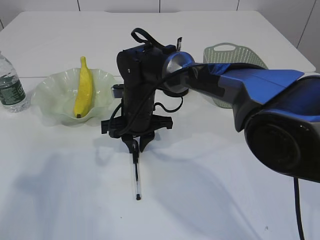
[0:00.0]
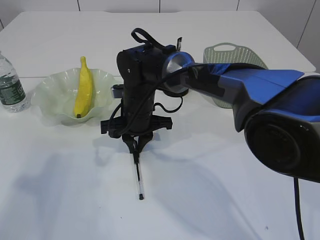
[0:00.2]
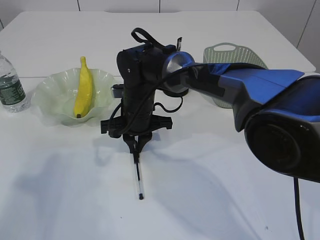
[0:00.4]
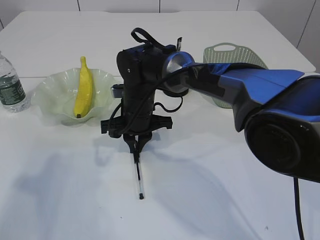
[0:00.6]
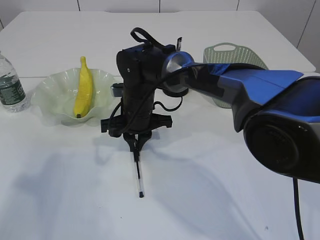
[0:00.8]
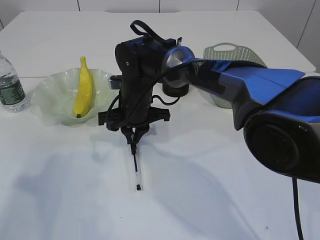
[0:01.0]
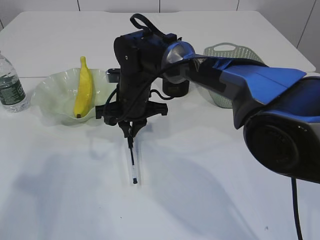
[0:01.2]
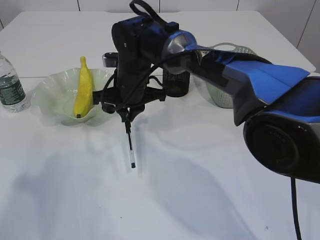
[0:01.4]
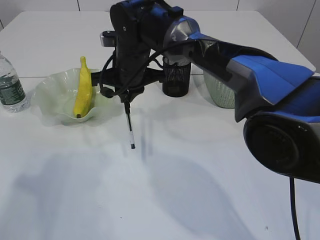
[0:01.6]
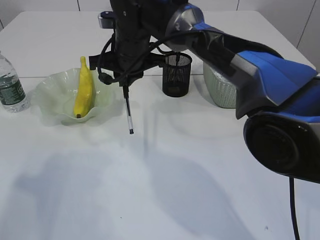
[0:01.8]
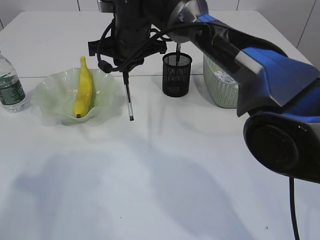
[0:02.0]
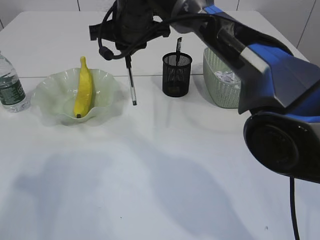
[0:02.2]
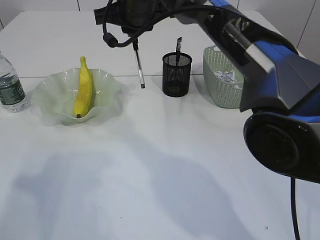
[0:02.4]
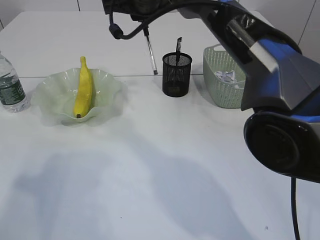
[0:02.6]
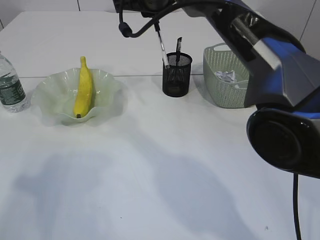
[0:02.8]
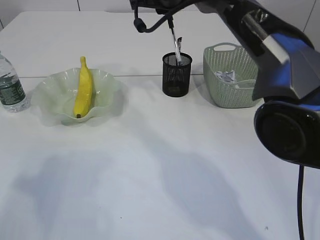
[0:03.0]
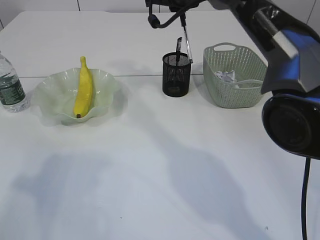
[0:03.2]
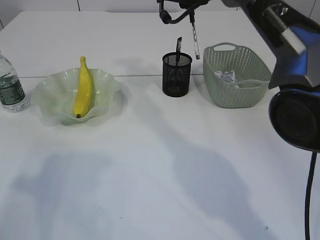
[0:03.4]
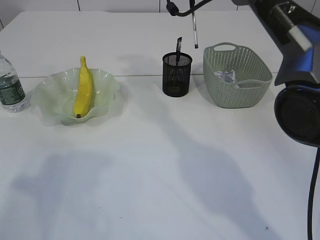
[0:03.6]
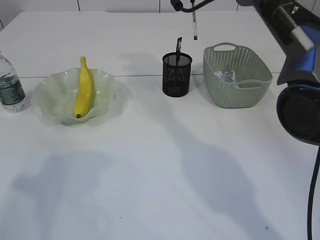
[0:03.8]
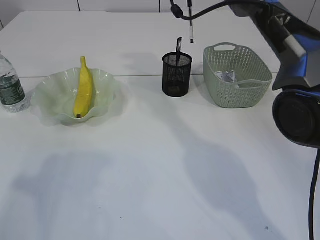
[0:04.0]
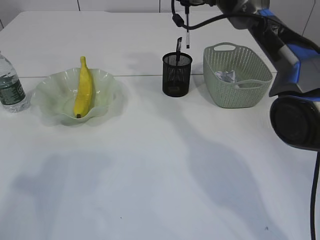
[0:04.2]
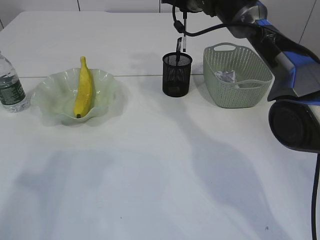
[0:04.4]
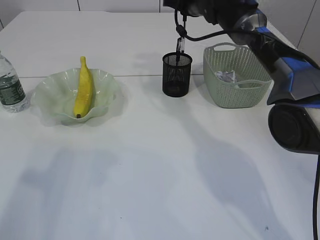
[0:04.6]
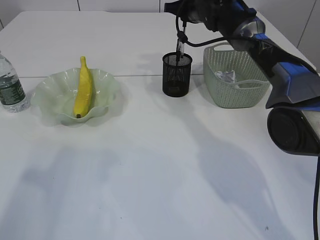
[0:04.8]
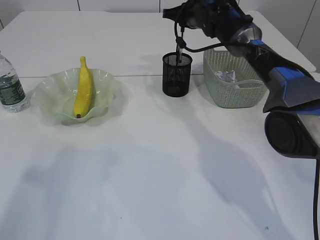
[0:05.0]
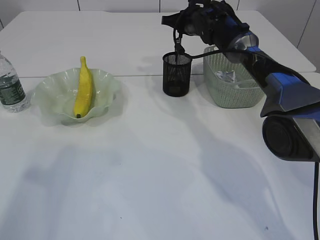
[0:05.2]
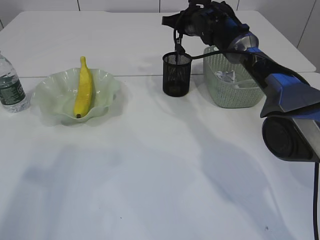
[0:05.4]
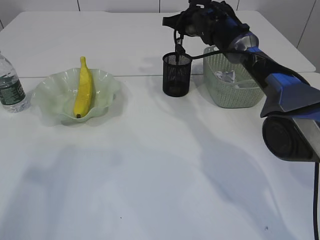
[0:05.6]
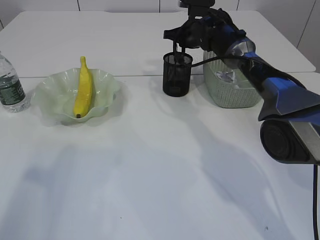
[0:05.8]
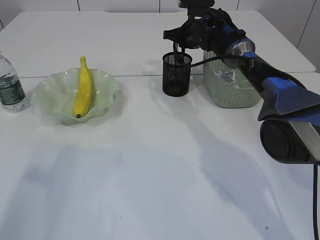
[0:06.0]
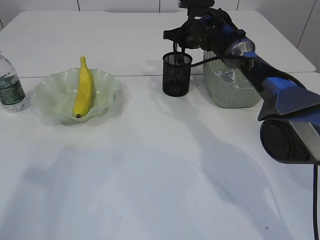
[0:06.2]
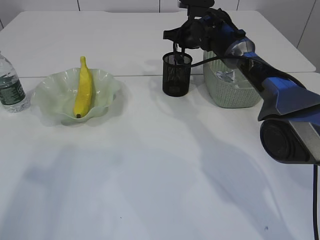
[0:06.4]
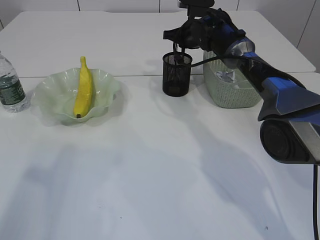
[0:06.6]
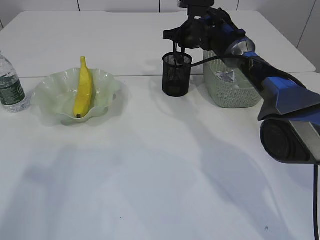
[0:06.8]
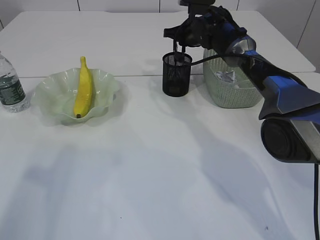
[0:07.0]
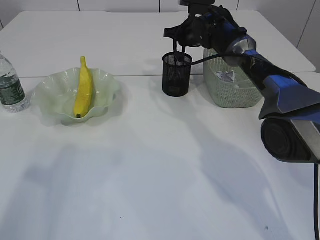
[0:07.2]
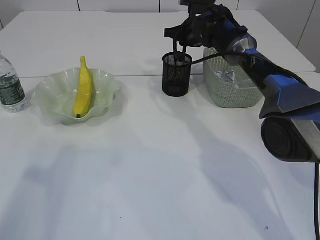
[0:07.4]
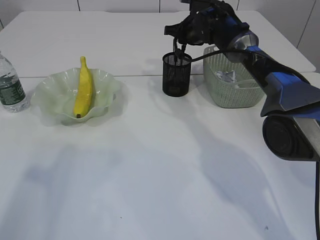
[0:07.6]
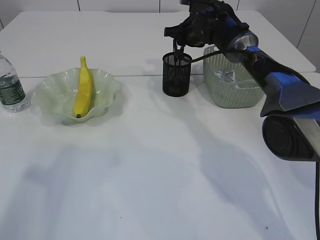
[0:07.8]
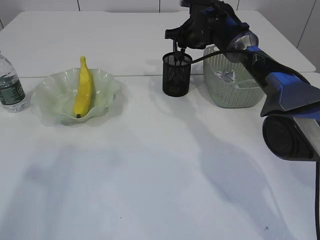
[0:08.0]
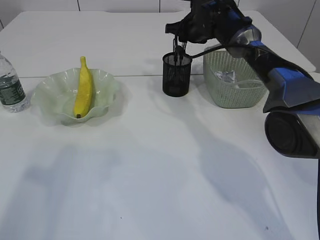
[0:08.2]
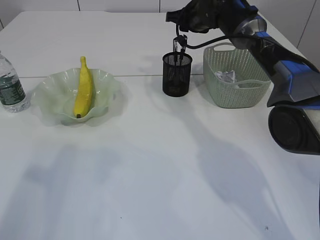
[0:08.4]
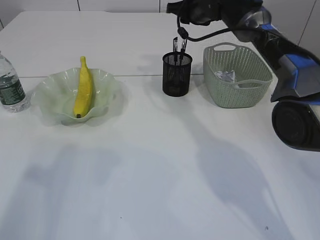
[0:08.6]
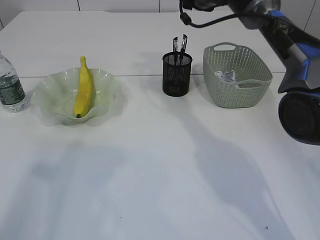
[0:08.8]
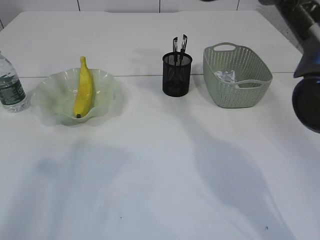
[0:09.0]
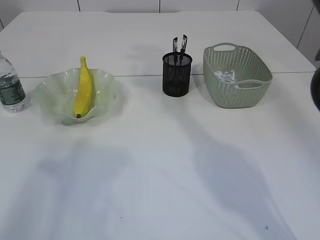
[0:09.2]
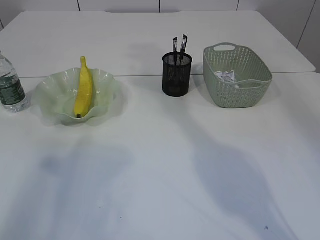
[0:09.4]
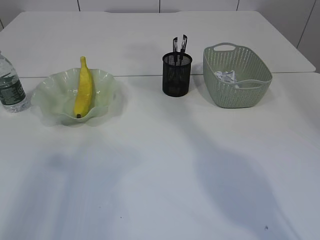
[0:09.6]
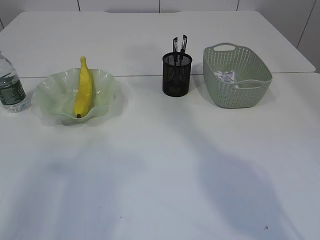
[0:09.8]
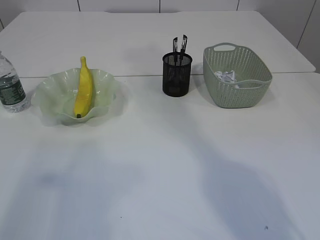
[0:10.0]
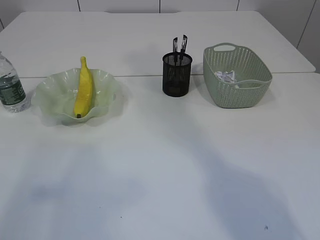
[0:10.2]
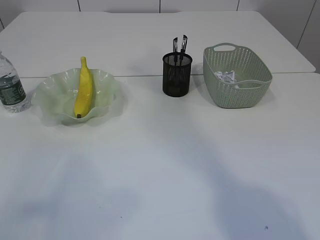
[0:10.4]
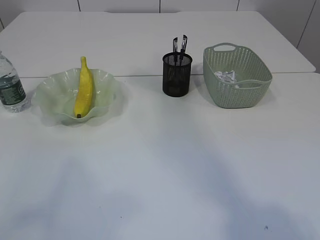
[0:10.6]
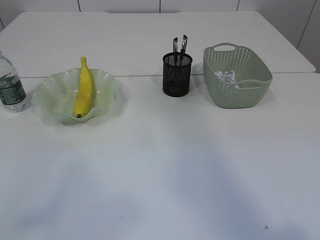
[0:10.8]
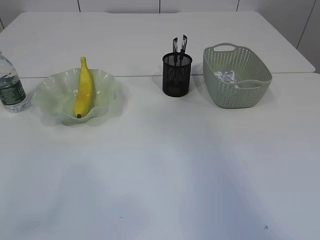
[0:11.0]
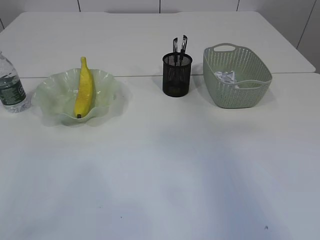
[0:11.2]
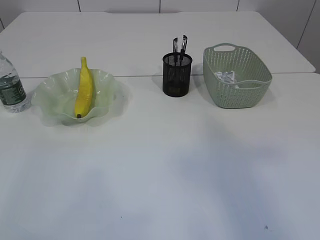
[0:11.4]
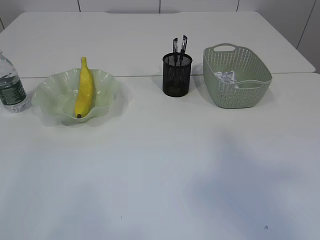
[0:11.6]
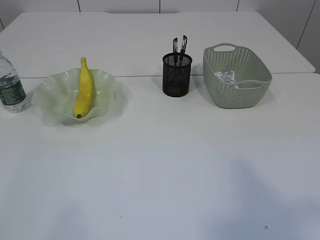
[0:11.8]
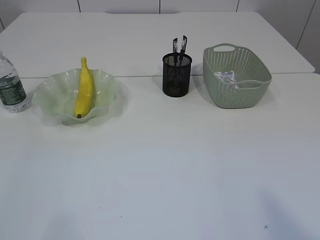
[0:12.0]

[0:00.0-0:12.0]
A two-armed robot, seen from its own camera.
Step, 0:01.4 to 0:08.4: Place the pen into the pen holder.
0:00.0 to 0:01.6: The right gripper travels upward by about 10 cm.
0:01.6 to 0:03.0: The right gripper moves upward and to the right, some 15 cm.
0:03.0 to 0:04.4: The right gripper goes roughly 10 cm forward and to the right.
0:04.4 to 0:06.0: The right gripper goes approximately 10 cm downward.
0:06.0 to 0:07.6: The two grippers keep their place.
0:07.6 to 0:09.0: The right gripper travels upward by some 15 cm.
0:09.0 to 0:10.4: The left gripper is displaced backward and upward by some 15 cm. Meanwhile the right gripper is displaced upward and backward by approximately 40 cm, and closes its fingers.
0:10.4 to 0:12.0: The right gripper is displaced backward by some 30 cm.

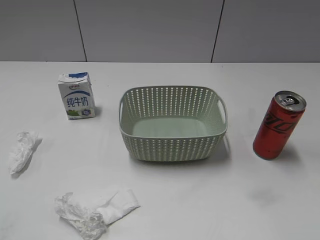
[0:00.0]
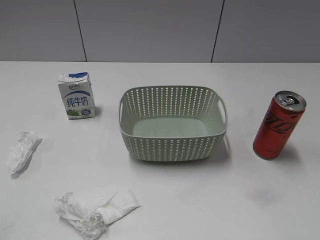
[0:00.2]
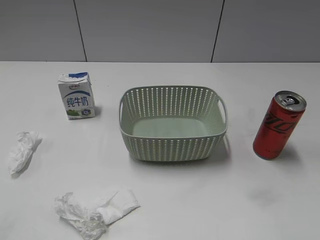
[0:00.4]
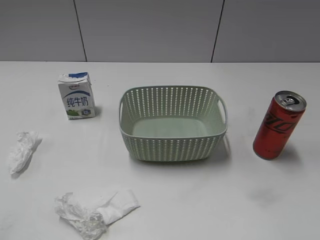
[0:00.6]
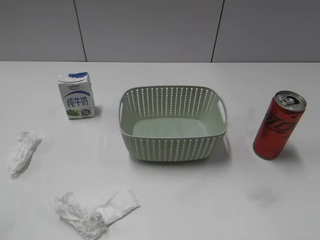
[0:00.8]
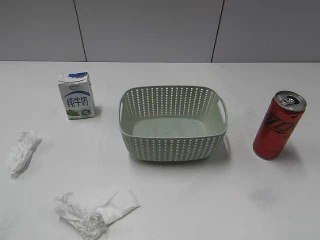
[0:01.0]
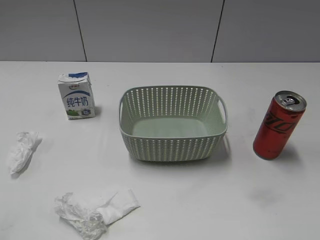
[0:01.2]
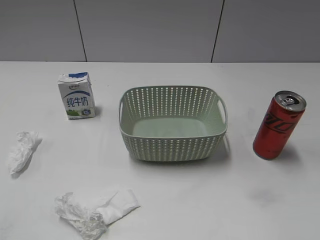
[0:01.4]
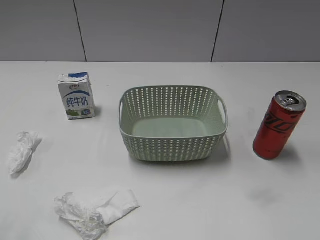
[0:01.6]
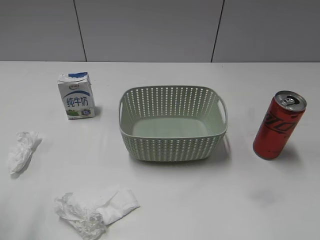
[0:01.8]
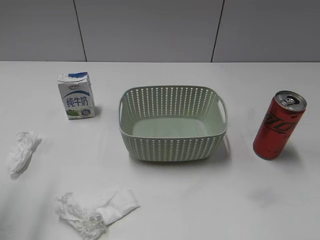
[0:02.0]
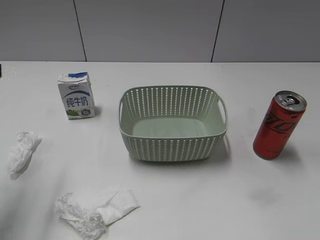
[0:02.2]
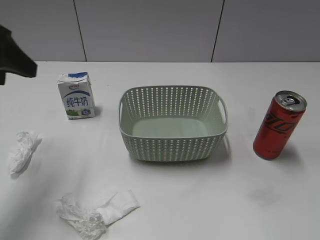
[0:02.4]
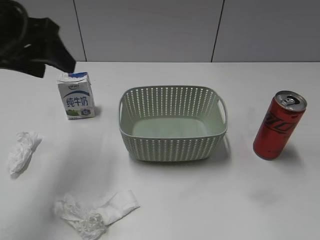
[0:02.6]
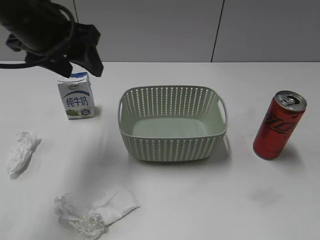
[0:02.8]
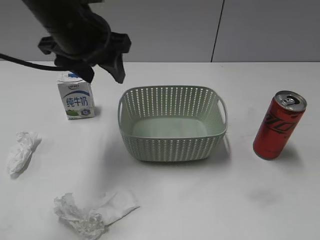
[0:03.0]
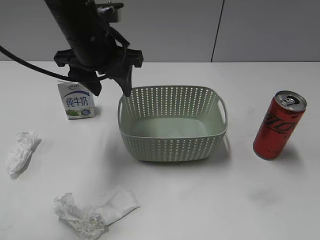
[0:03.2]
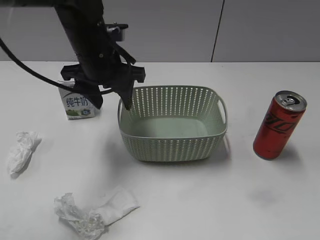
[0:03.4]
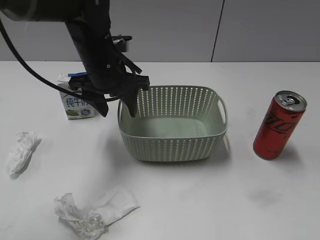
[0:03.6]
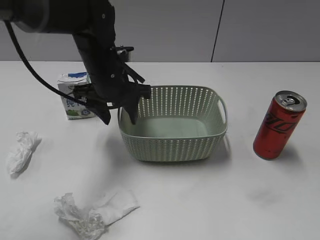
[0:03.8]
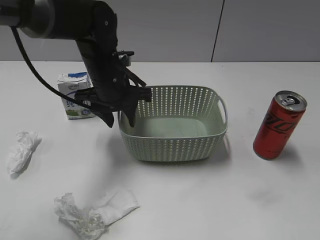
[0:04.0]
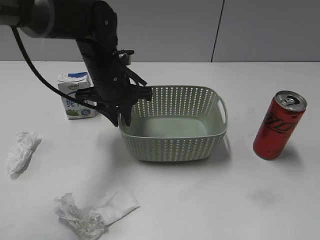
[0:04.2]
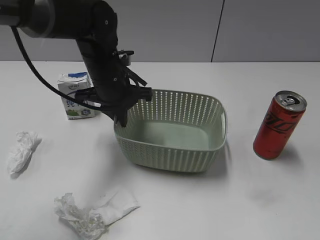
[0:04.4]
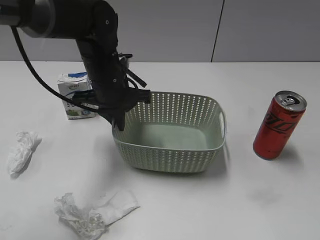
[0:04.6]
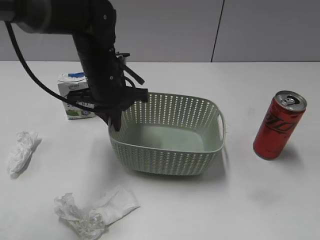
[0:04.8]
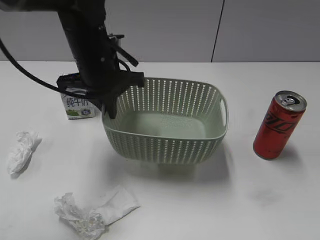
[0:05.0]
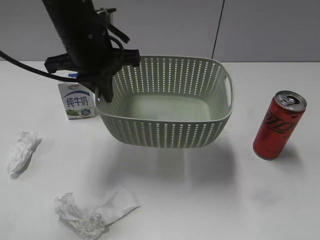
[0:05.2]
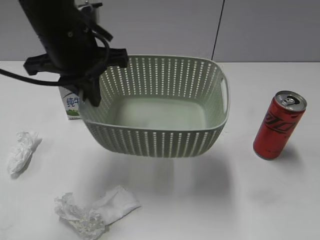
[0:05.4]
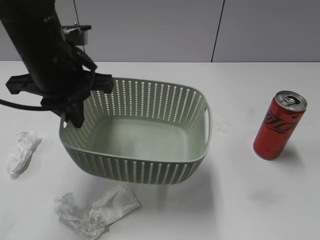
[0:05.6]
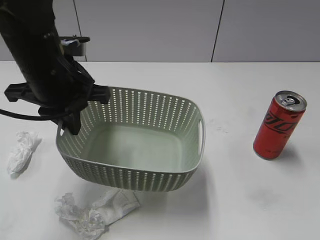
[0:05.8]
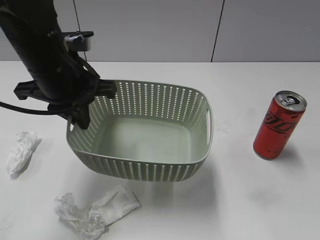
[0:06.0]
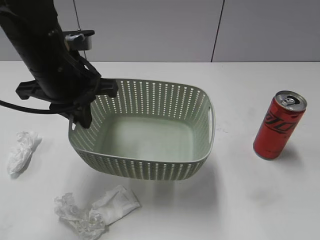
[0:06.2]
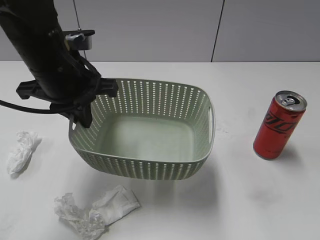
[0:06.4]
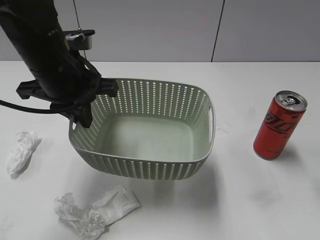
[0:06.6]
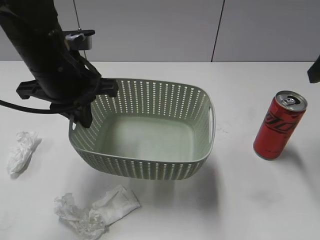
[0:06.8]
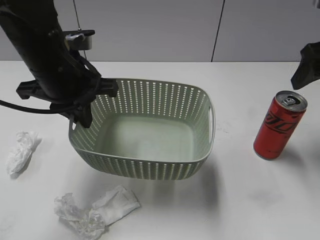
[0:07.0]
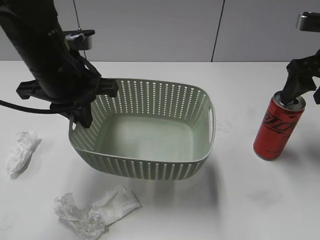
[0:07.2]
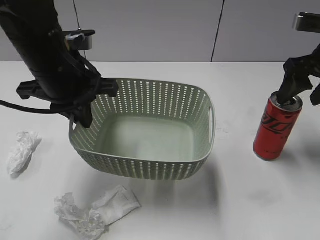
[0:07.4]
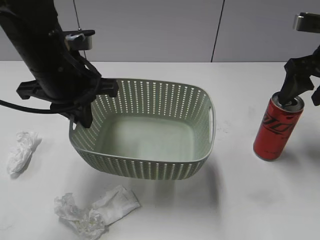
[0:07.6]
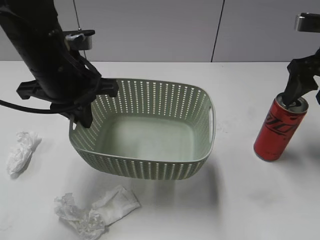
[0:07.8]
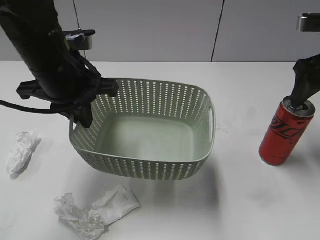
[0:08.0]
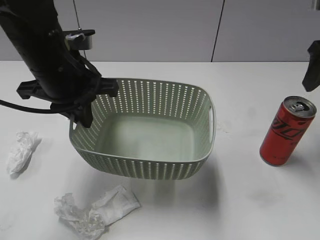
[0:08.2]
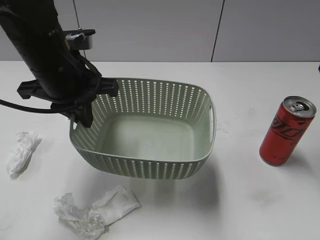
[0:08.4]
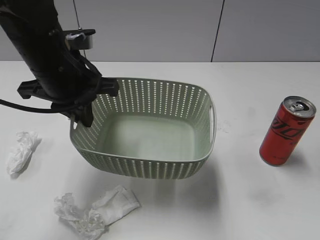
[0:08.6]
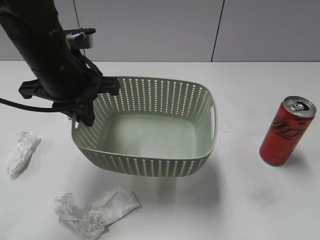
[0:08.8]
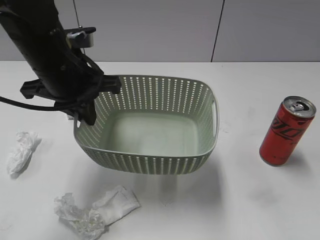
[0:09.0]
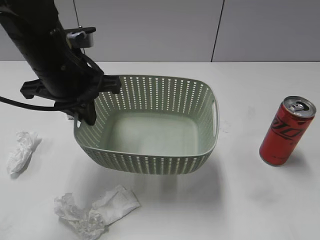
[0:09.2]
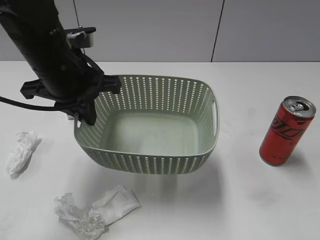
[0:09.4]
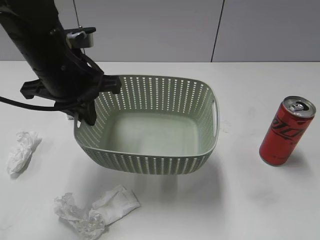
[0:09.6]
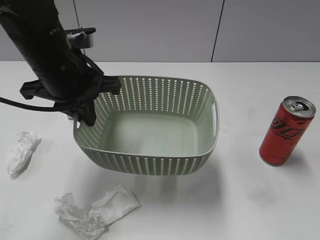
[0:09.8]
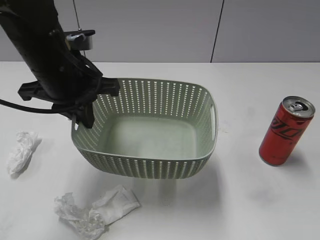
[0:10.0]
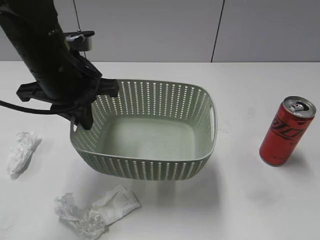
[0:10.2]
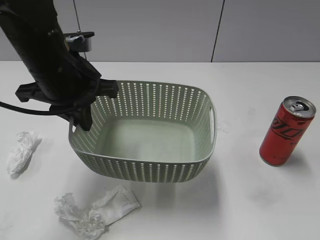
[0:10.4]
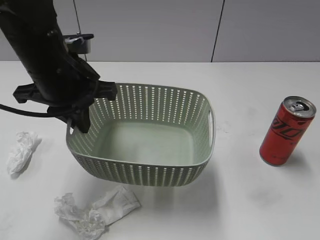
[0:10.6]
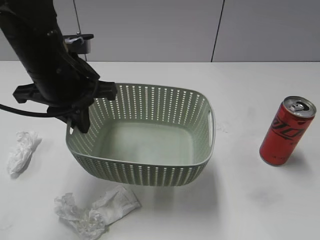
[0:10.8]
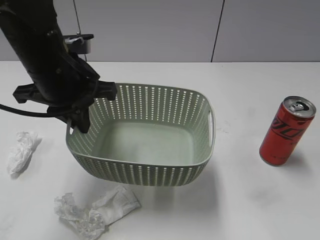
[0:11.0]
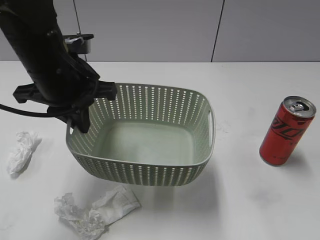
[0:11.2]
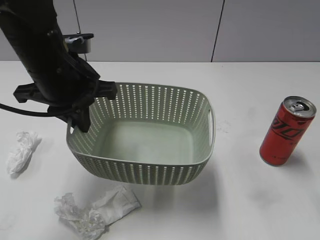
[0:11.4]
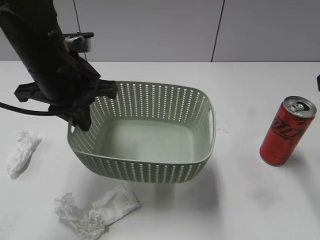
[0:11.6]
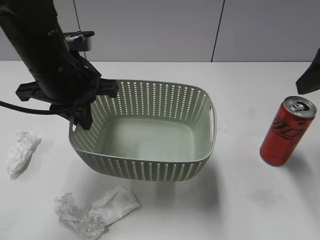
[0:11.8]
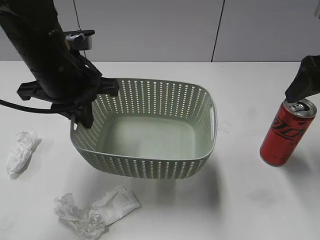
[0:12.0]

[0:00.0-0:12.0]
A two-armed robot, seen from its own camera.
Step, 0:02.2 to 0:04.2: Grasp the basket with left gripper.
Step, 0:04.4 to 0:06.6: Lift the basket with left gripper.
0:01.6 to 0:03.0: The left gripper moves forward and to the right, approximately 30 cm.
0:03.0 to 0:04.4: The left gripper is displaced downward by roughly 10 cm, and closes its fingers.
0:04.4 to 0:06.0: The right gripper changes place by approximately 5 cm. The left gripper travels backward, upward and to the left by approximately 10 cm.
0:06.0 to 0:07.6: The right gripper is displaced forward by approximately 30 cm.
0:07.6 to 0:09.0: The right gripper goes about 20 cm backward and upward.
0:09.0 to 0:10.4: The right gripper shifts about 15 cm backward and downward.
0:10.4 to 0:12.0: The right gripper moves forward, some 30 cm, and opens.
